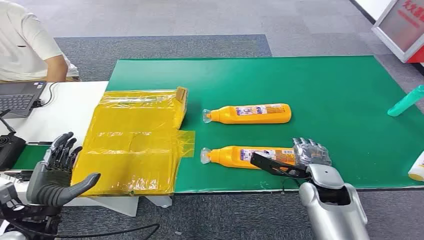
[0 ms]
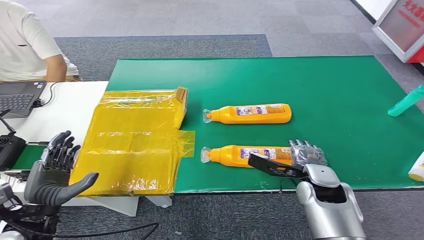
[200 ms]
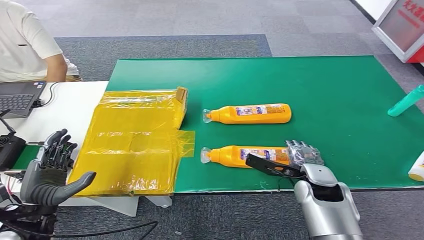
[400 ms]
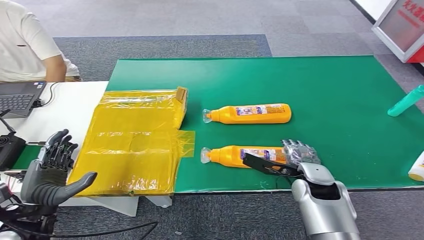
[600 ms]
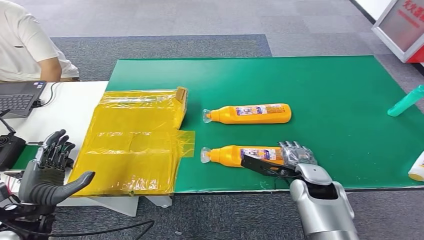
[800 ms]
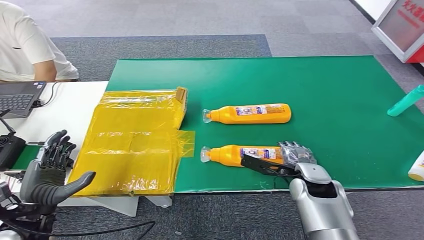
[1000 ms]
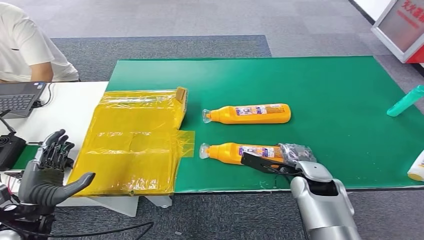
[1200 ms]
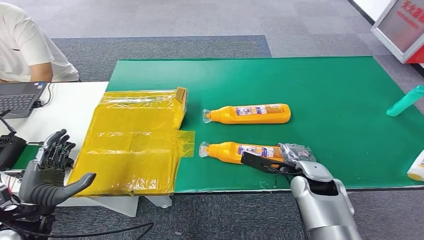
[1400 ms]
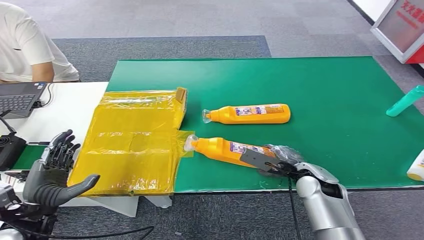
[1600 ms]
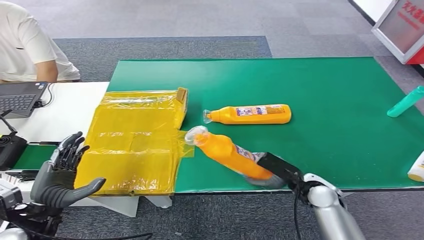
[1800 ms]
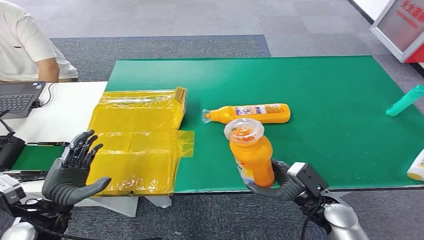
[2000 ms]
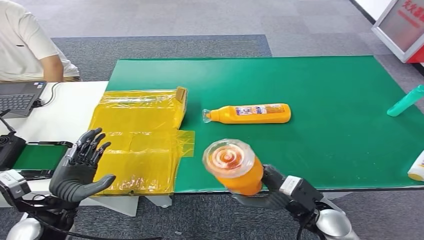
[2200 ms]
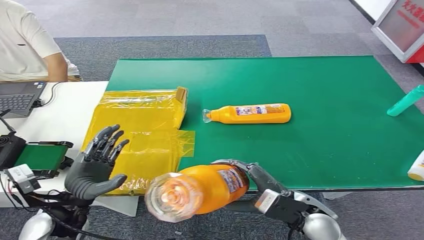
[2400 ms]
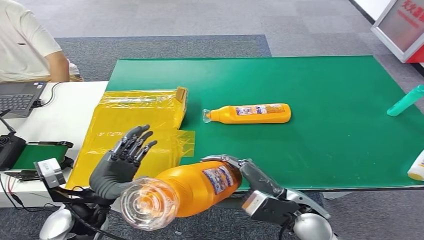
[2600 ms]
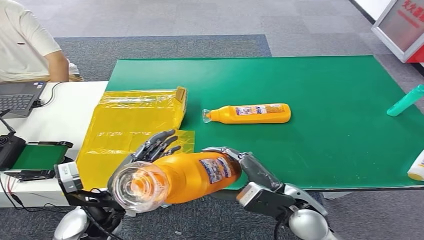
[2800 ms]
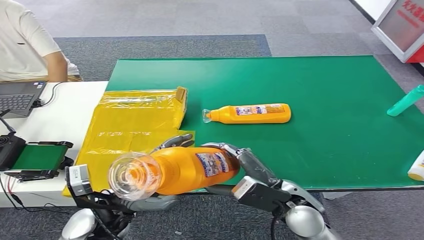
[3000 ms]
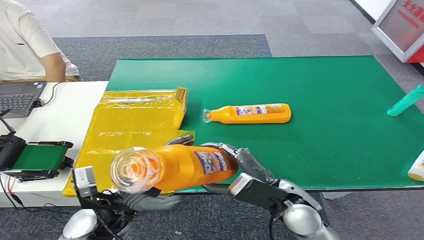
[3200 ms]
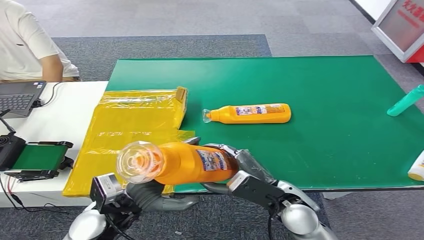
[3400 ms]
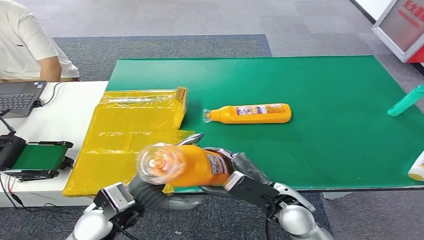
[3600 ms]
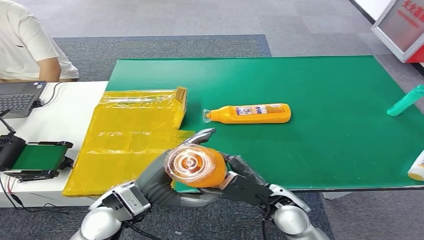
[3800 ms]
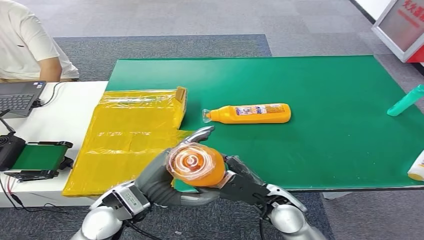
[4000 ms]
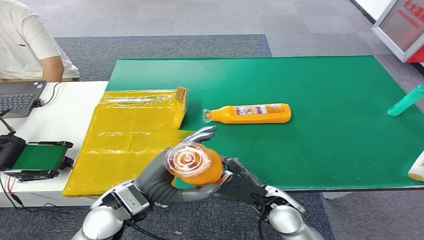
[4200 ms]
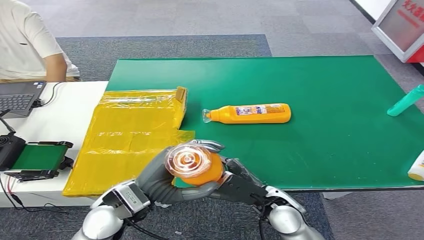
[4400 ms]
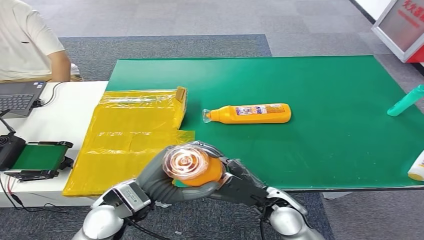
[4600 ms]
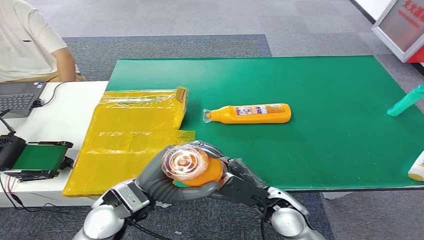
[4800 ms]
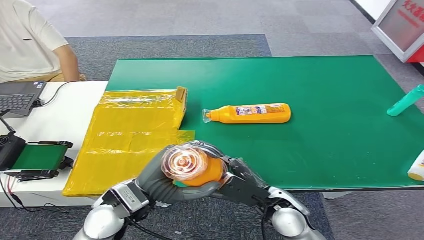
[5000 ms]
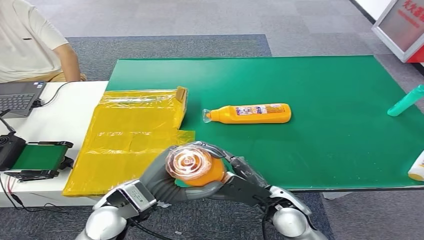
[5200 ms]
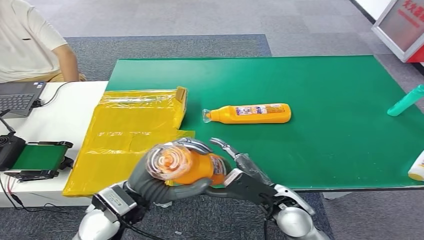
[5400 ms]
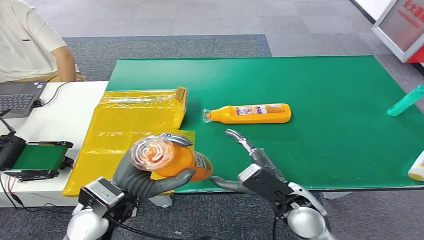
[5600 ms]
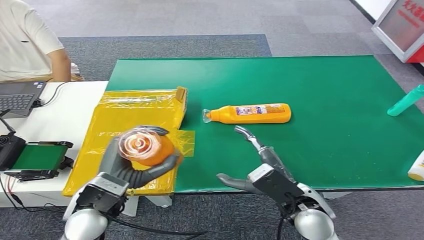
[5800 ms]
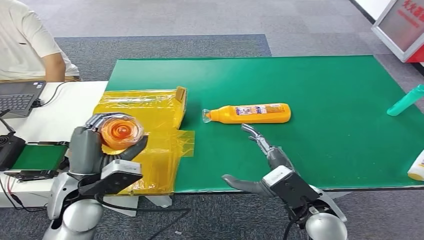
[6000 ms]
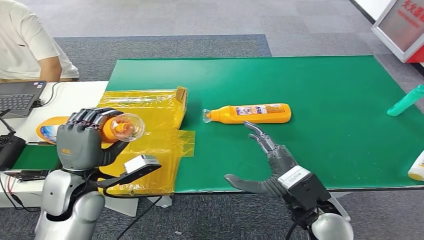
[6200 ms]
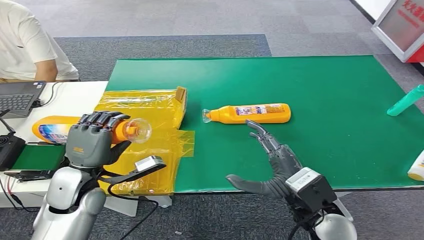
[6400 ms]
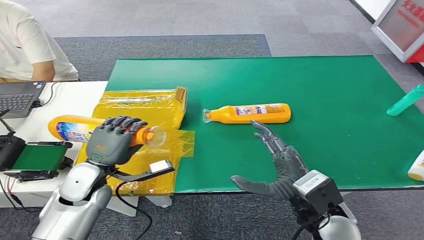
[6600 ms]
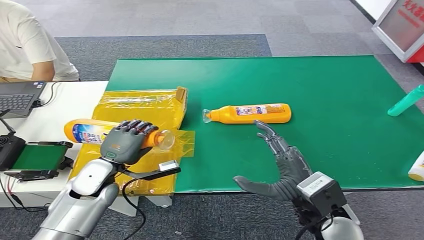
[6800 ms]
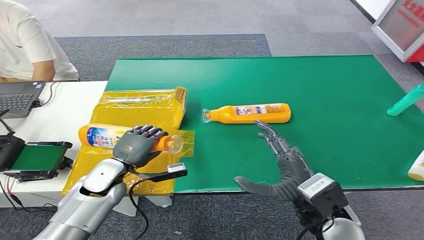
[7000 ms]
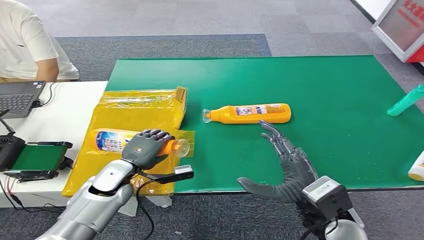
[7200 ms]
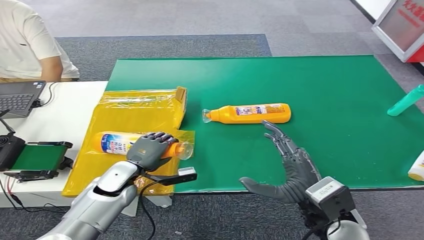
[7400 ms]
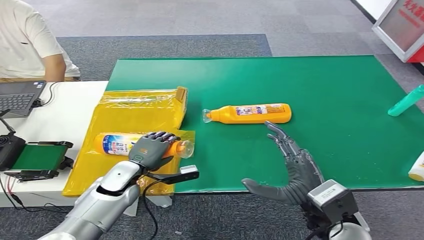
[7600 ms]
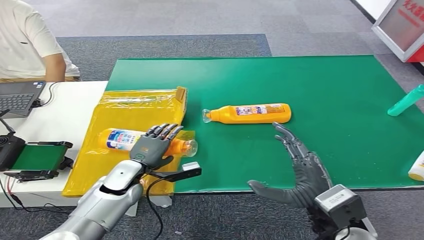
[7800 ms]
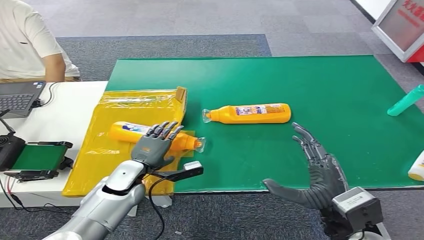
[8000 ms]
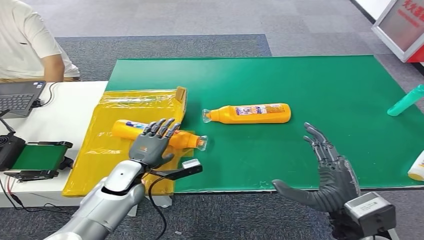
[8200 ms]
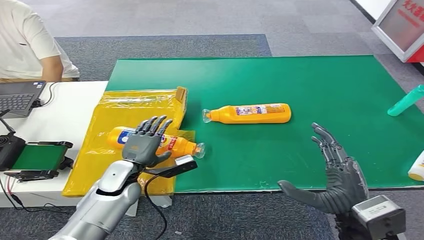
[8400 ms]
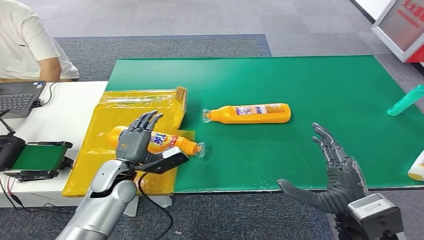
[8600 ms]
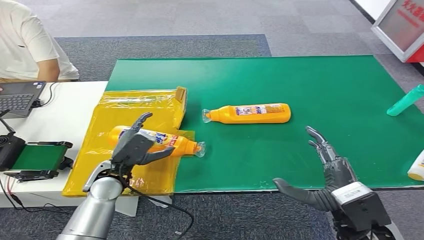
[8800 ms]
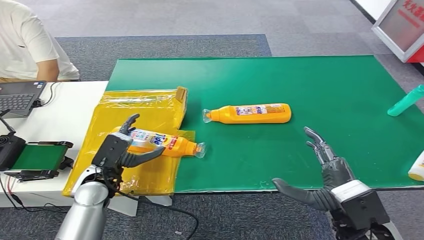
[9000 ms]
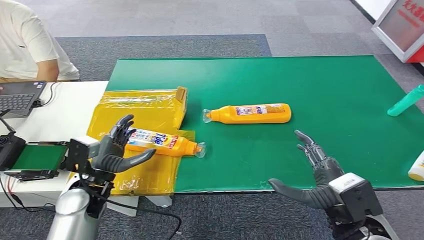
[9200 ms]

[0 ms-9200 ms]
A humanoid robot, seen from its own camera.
Step, 0 ms to 2400 ms: Pick up the bottle from the table.
Step, 4200 ms to 9200 ms: Turn the bottle to the front side.
3000 ms to 4600 ms: The left hand moves about 5 cm. Meanwhile the right hand is displaced downward by some 5 cm.
6200 ms to 7600 ms: The left hand heads downward and forward, covering approximately 15 cm.
7600 ms to 9200 ms: The left hand shifts some 5 cm upward.

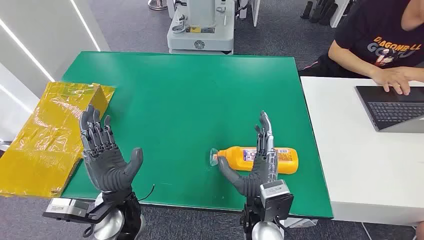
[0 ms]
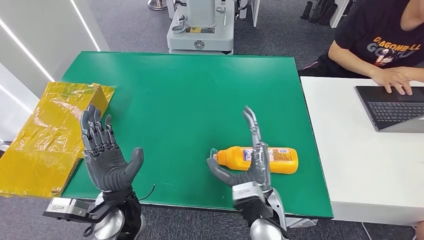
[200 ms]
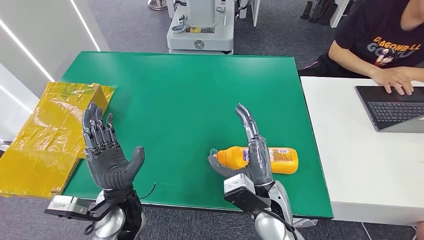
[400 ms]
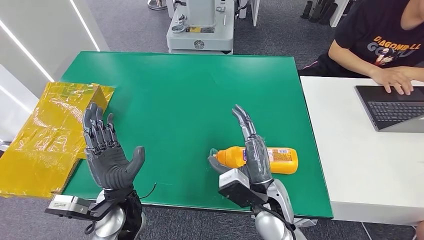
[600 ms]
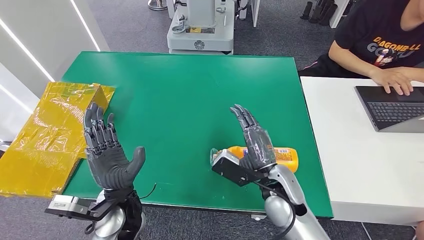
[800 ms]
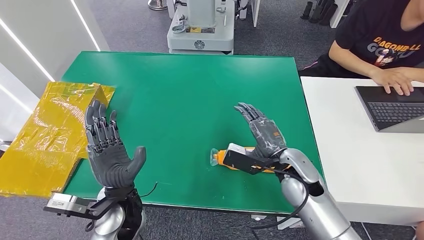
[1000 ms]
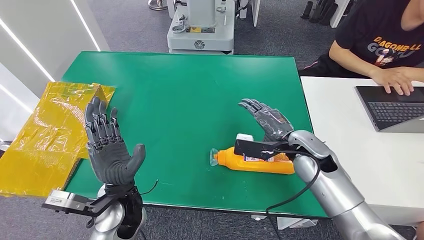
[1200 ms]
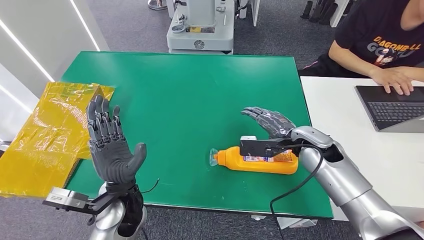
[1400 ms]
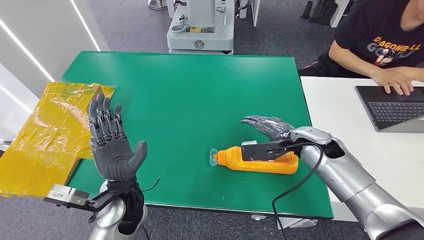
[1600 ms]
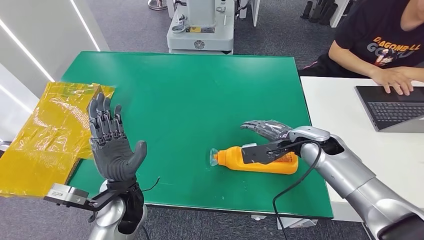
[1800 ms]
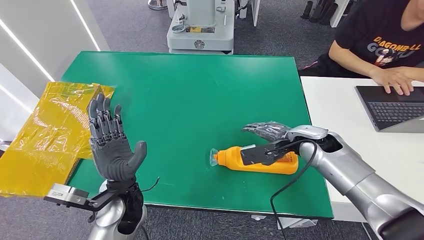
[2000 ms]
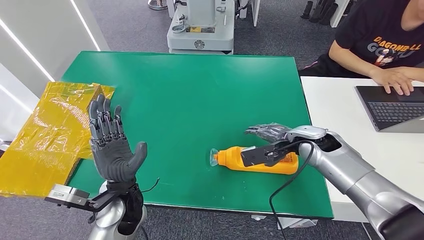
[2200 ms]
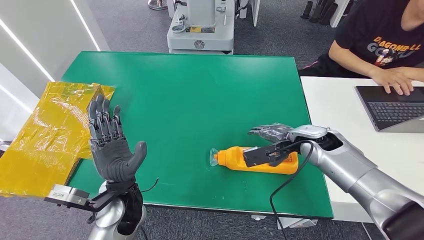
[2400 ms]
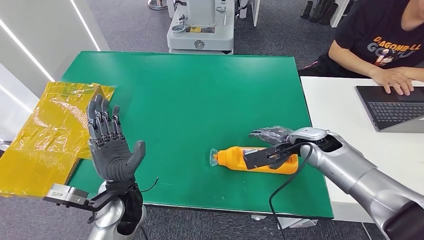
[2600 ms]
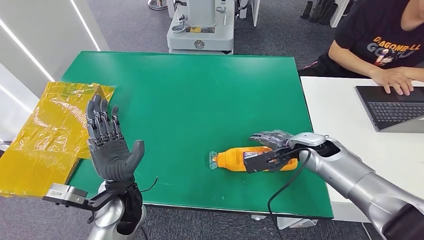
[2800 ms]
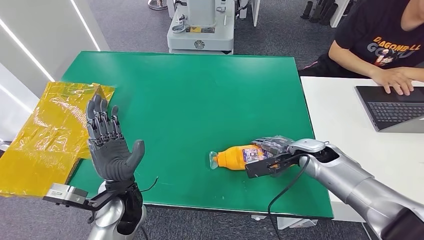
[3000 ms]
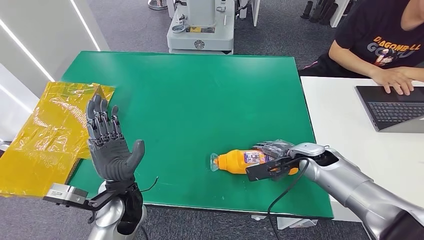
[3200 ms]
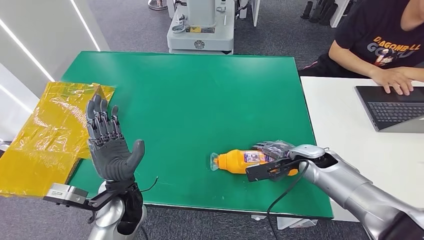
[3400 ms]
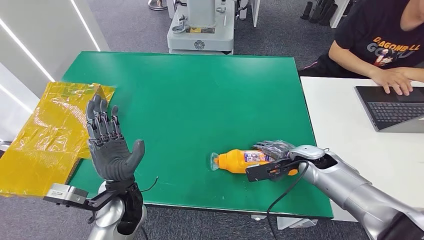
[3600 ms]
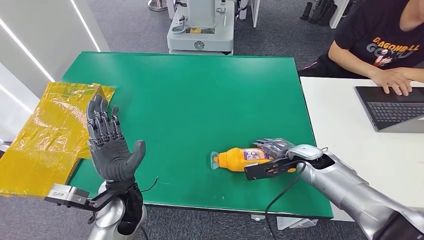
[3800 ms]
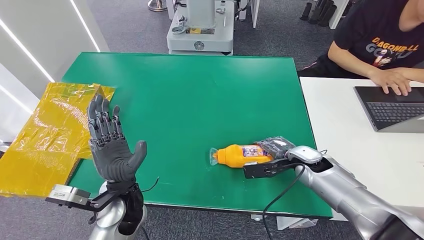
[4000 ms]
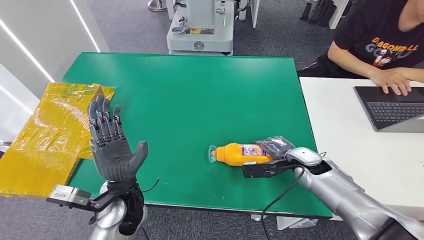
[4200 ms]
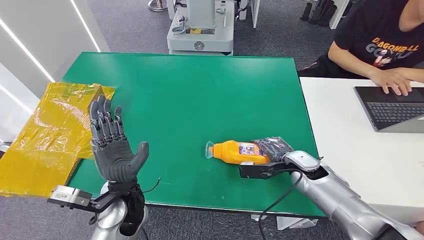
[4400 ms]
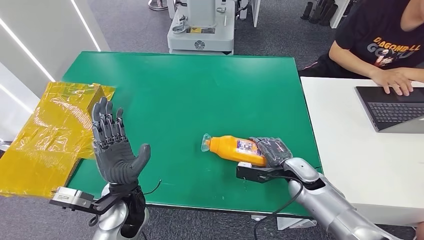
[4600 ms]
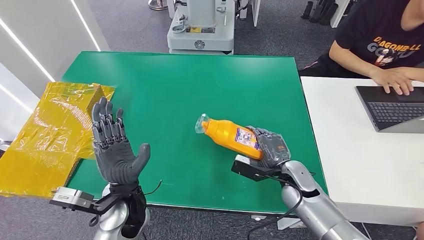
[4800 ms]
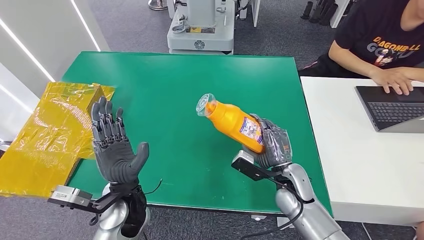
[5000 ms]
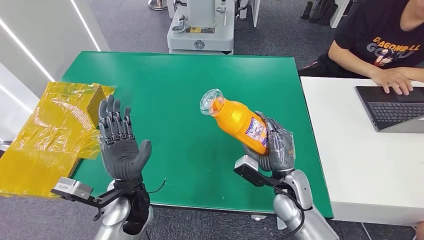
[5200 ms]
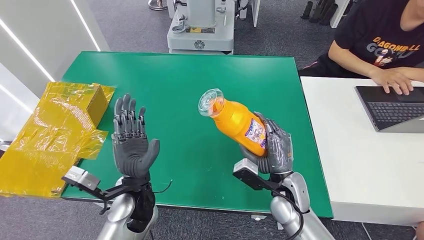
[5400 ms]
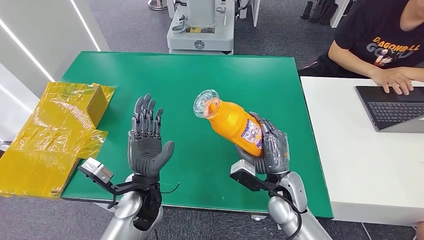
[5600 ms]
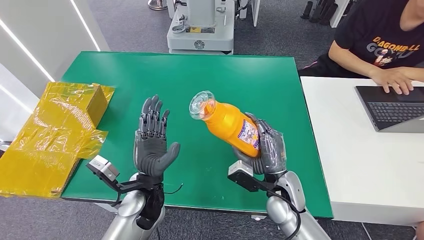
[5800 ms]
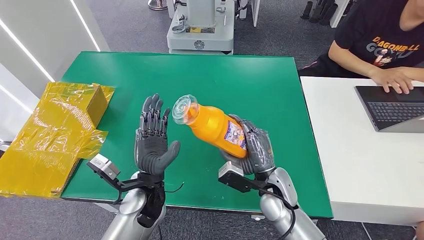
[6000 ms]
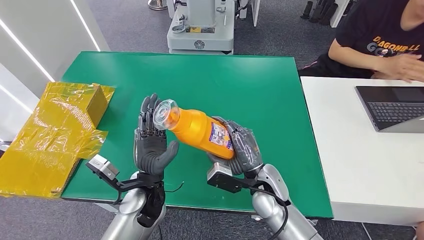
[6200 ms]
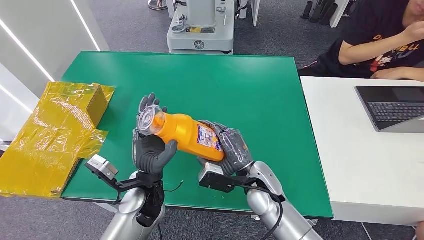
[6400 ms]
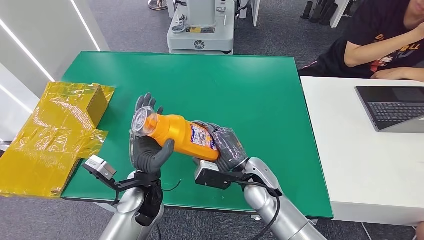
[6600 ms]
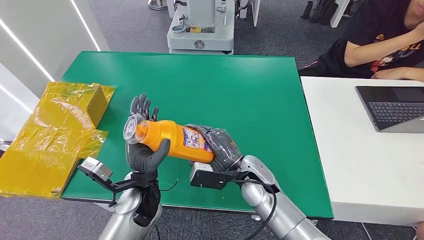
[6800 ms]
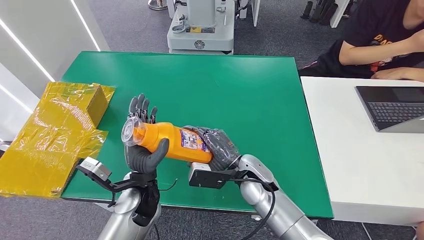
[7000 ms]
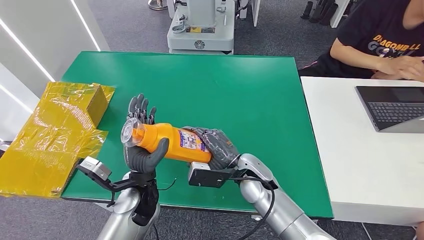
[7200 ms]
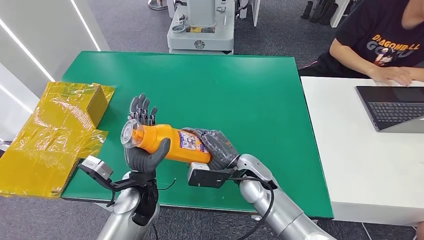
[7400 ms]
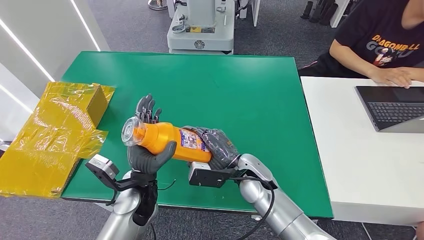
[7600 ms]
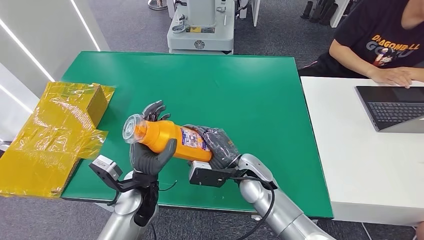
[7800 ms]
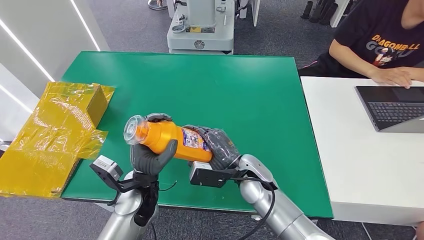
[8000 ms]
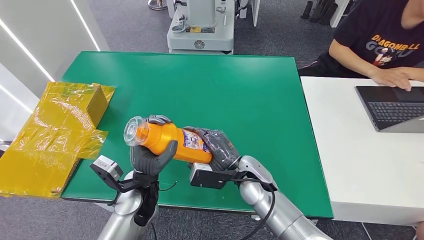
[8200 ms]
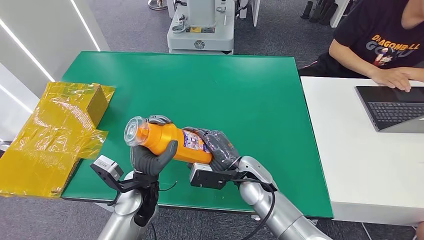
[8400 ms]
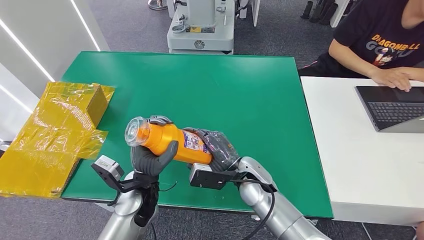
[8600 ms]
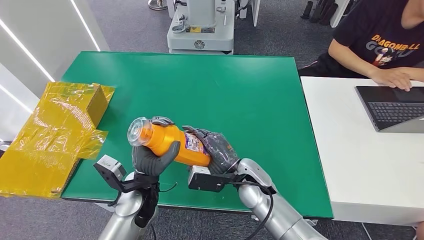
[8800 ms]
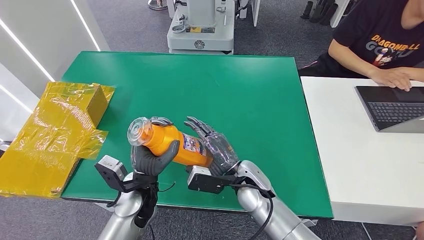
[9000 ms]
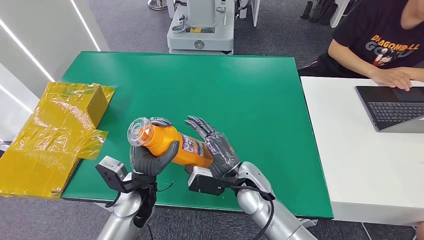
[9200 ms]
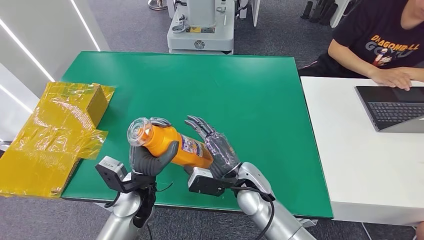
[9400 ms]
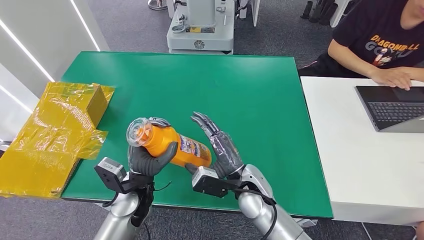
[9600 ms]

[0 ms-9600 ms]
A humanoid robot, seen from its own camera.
Step, 0 ms to 5200 ms: Pick up the bottle from the table.
1600 ms to 3200 ms: The right hand is displaced downward by about 5 cm.
3200 ms to 4800 ms: The right hand is displaced to the left and backward by about 10 cm.
6400 ms to 9600 ms: There are only small adjustments of the hands.
